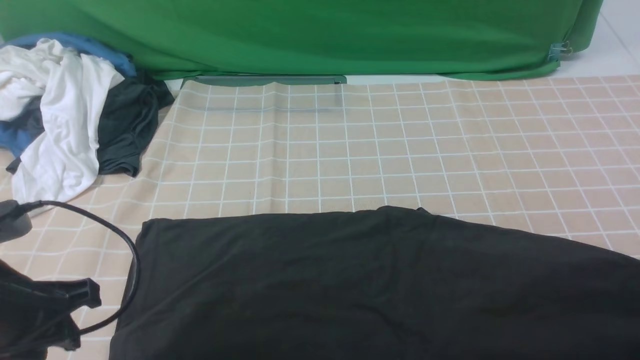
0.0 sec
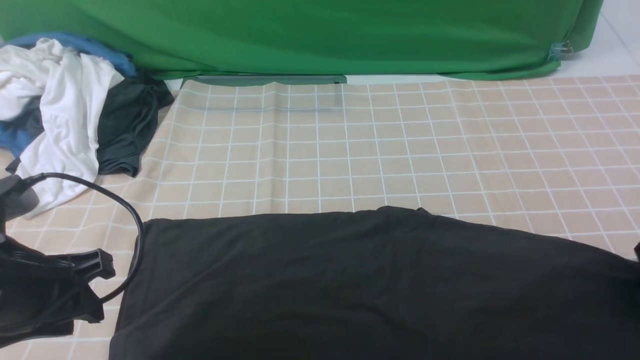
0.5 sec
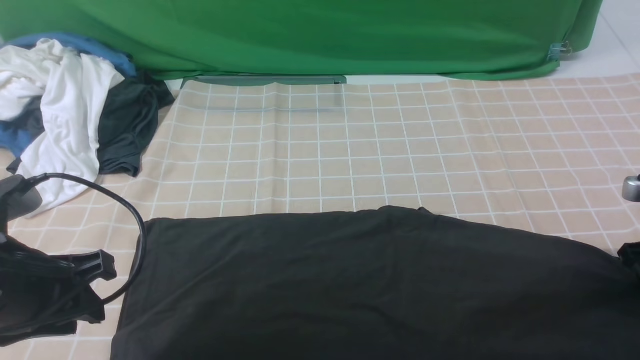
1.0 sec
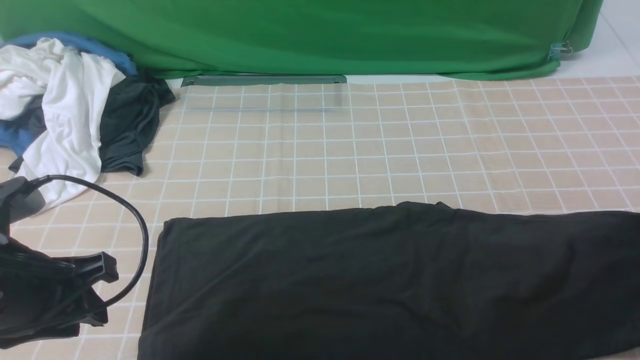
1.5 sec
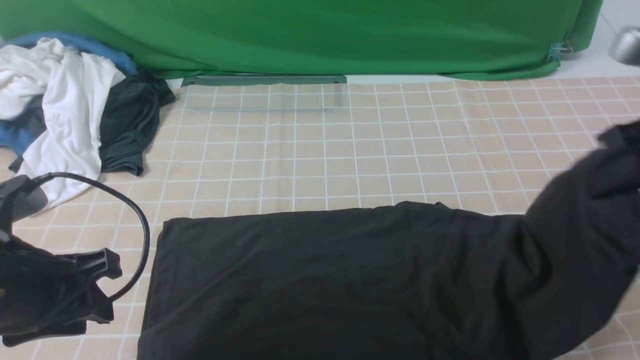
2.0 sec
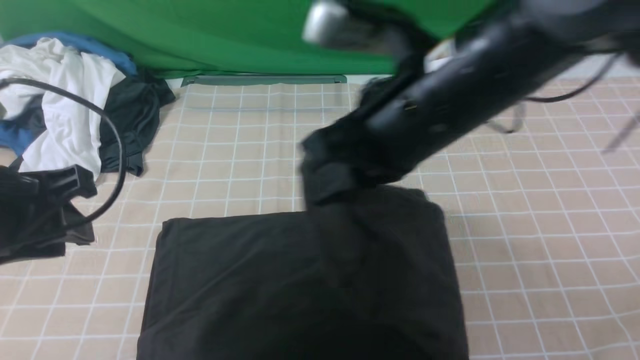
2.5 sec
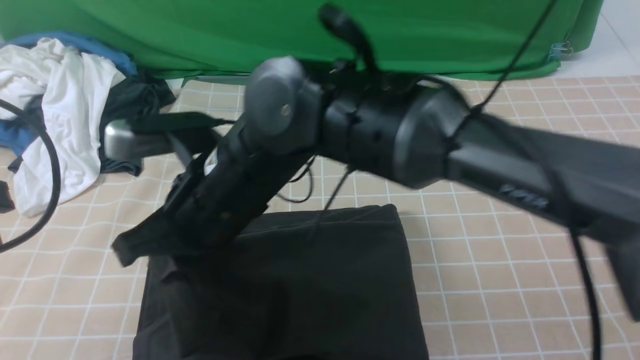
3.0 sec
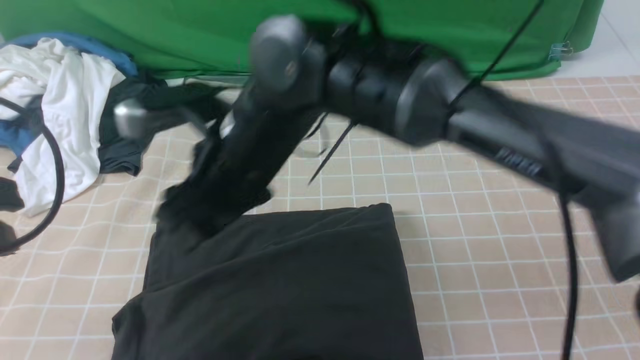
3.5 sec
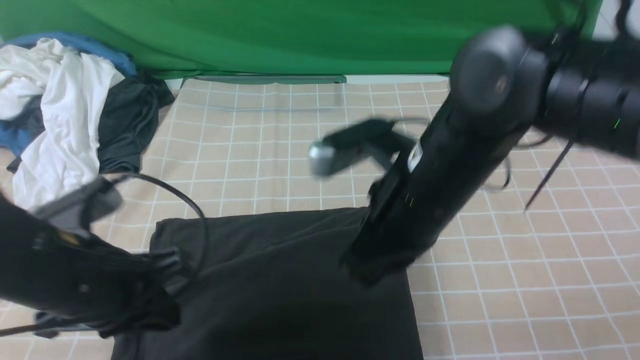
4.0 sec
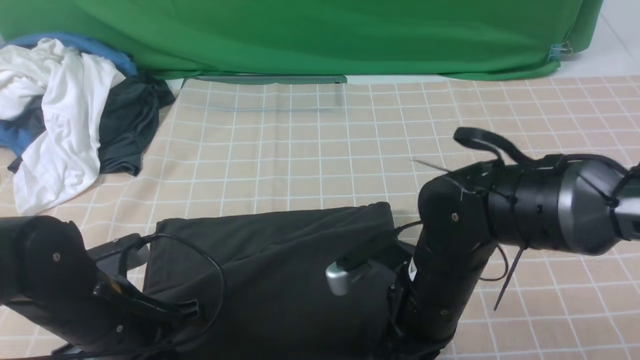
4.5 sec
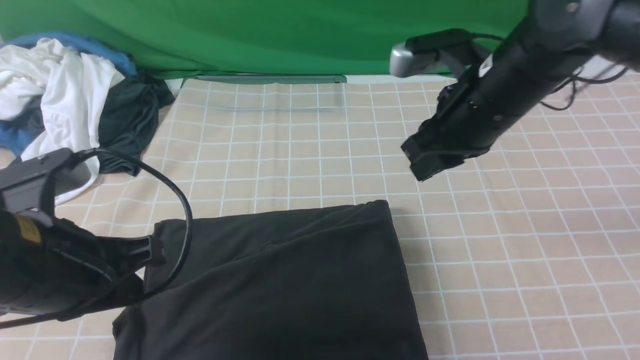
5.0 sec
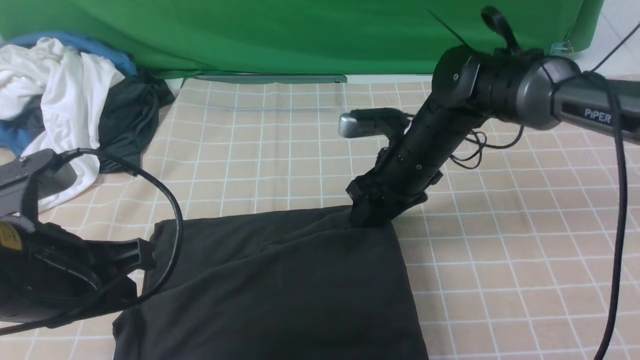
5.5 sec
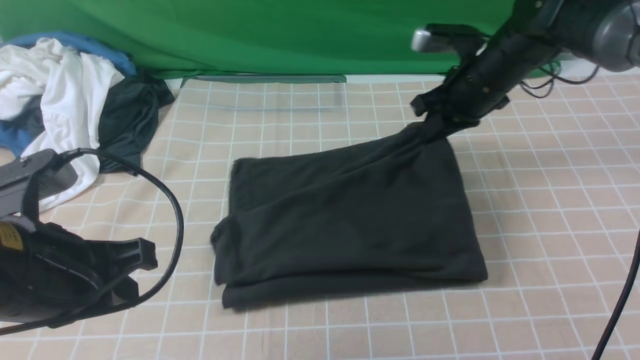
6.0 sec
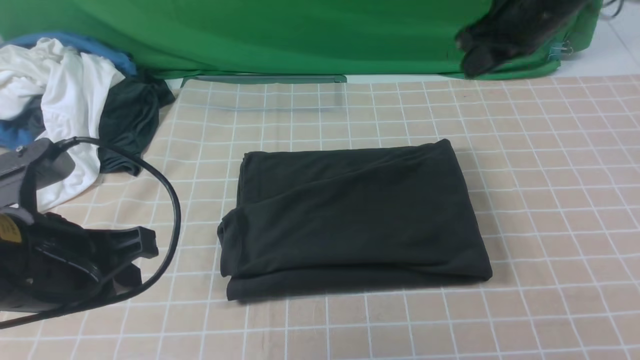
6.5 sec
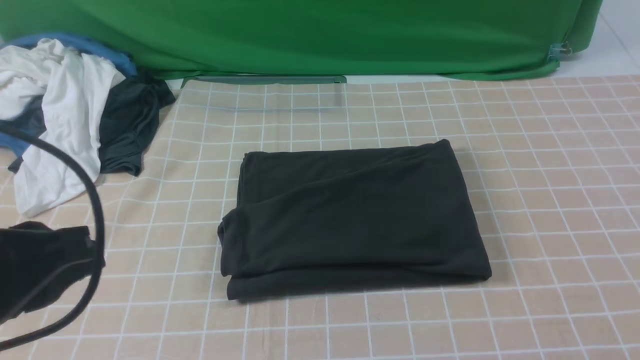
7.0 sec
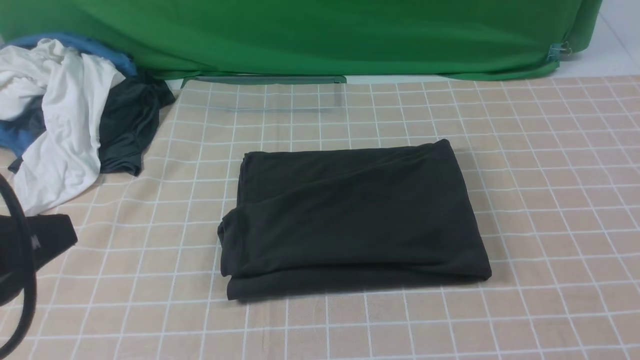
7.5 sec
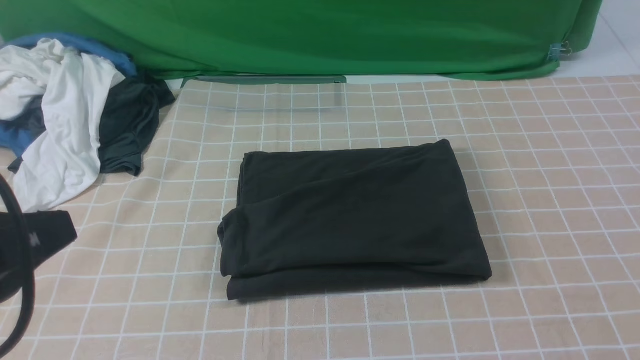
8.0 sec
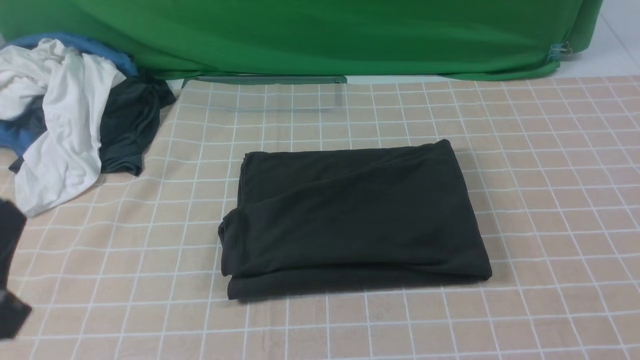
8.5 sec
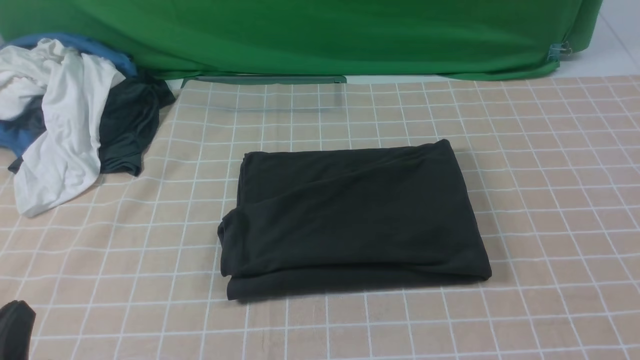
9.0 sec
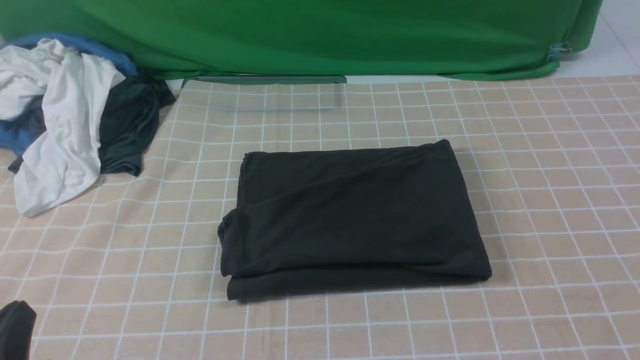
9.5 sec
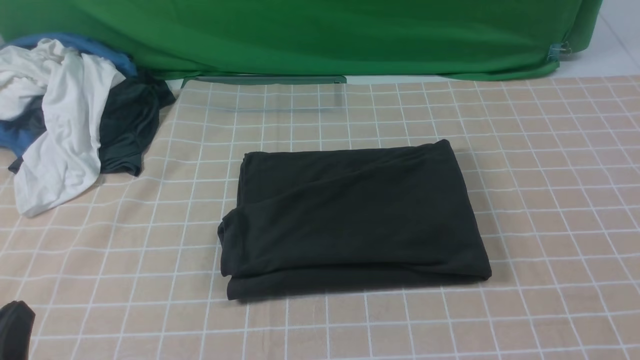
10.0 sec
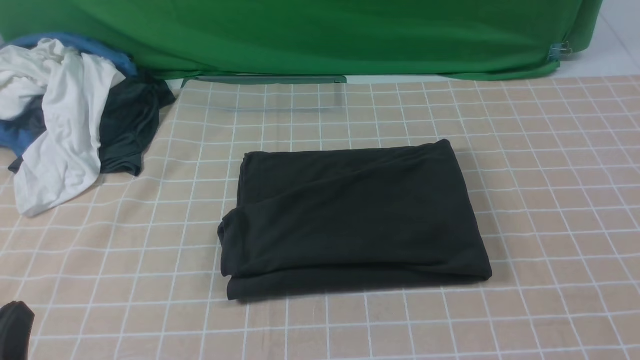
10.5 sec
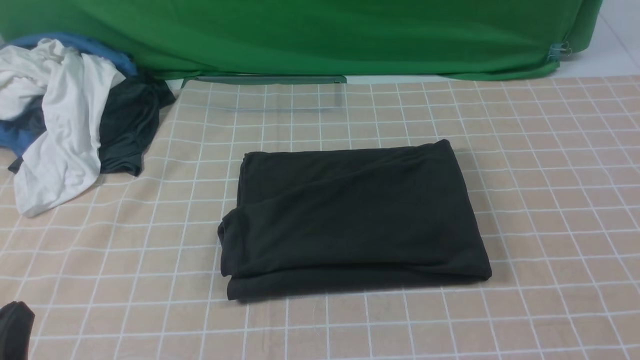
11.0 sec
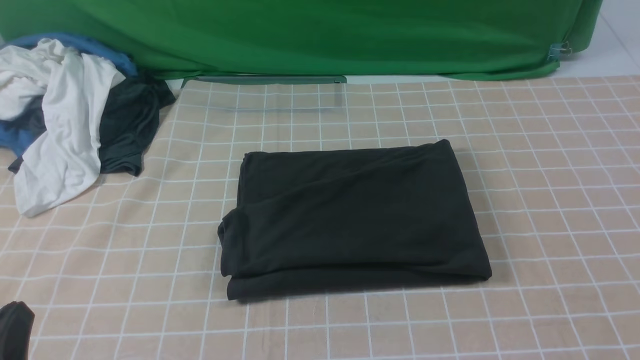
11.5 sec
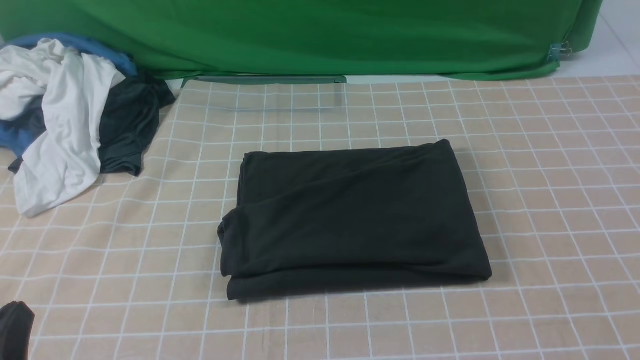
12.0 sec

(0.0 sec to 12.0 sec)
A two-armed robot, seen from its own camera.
Step, 1.5 sec - 3.0 sec: use the right arm to drag the right edge of the fabric to the left and folds it over the left edge.
0.0 sec - 2.0 sec: The right gripper travels to the left and upward by some 15 cm, and closes its fingers.
2.0 sec - 4.0 sec: The left gripper travels upward and back again, approximately 10 cm each way, and closes; the right gripper is displaced to the left by roughly 20 cm, and opens, then closes once more.
4.0 sec - 6.0 sec: The right gripper travels forward and to the right by some 20 cm. The left gripper moves roughly 5 cm.
6.0 sec - 8.0 sec: The left gripper is displaced backward and upward by about 10 cm; the right gripper travels backward by some 40 cm.
8.0 sec - 10.0 sec: The left gripper travels downward by roughly 15 cm.

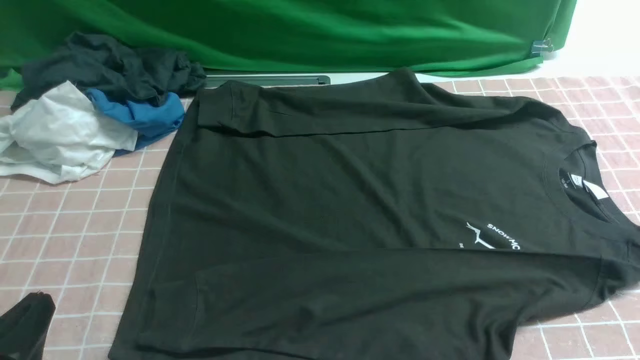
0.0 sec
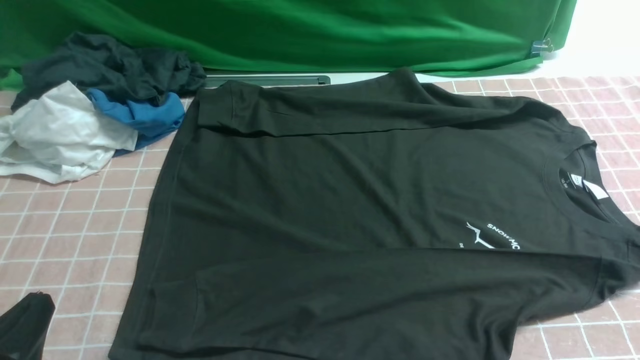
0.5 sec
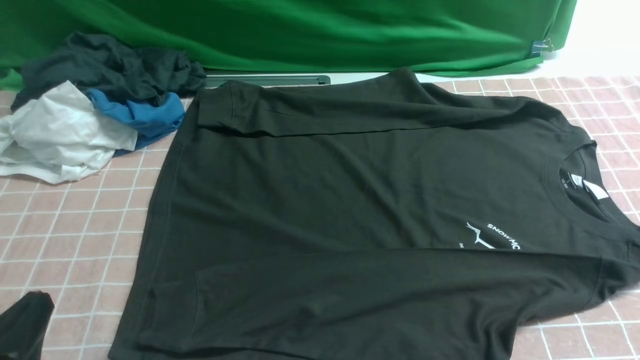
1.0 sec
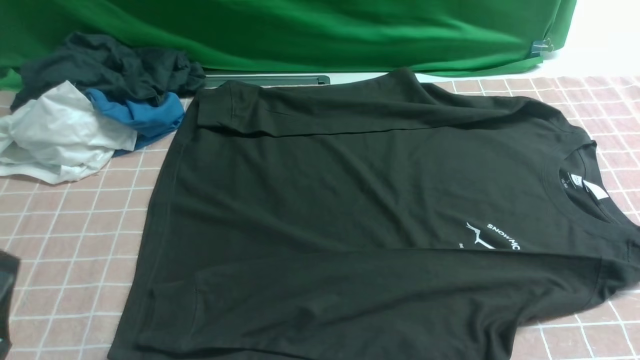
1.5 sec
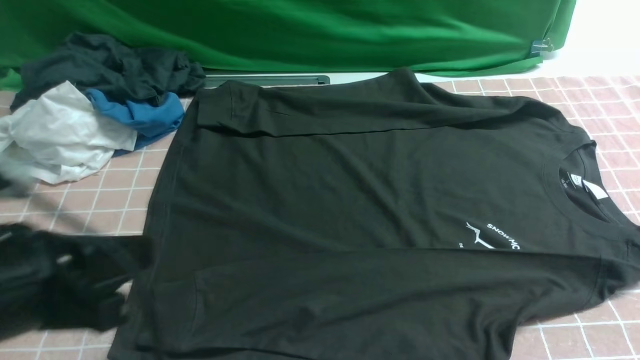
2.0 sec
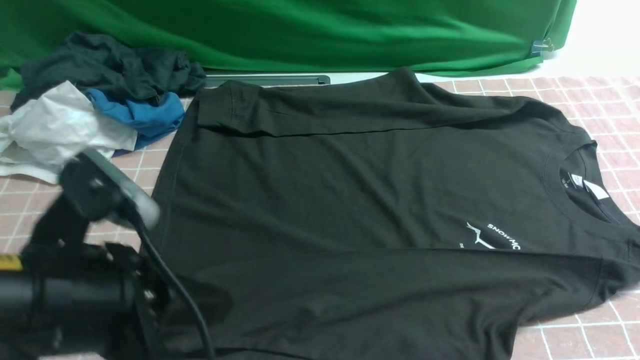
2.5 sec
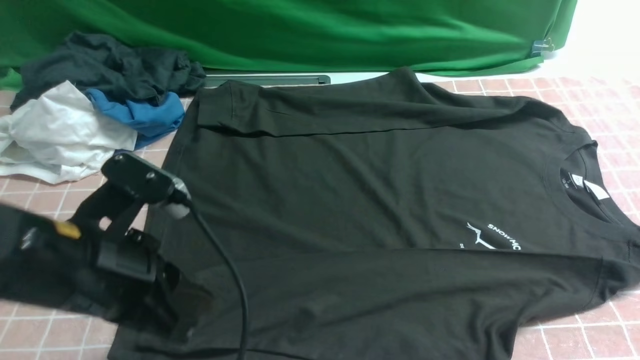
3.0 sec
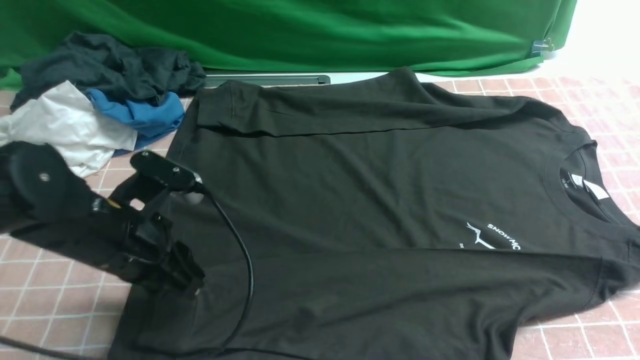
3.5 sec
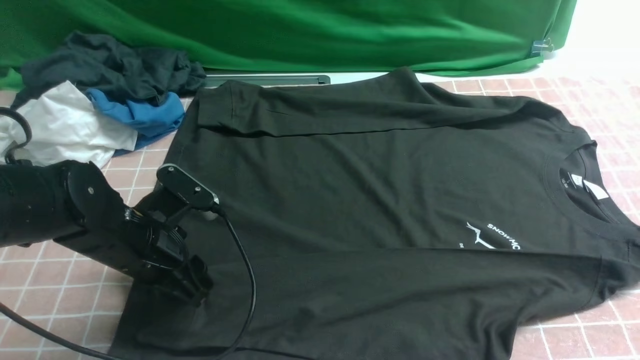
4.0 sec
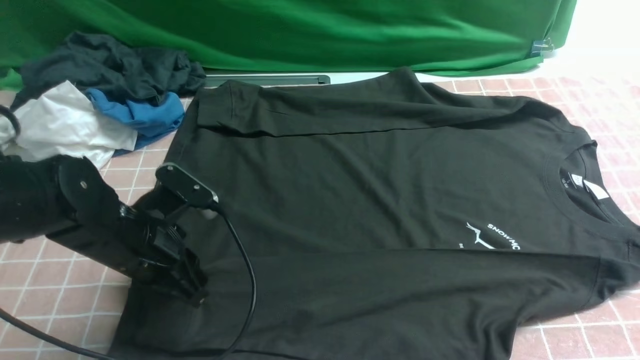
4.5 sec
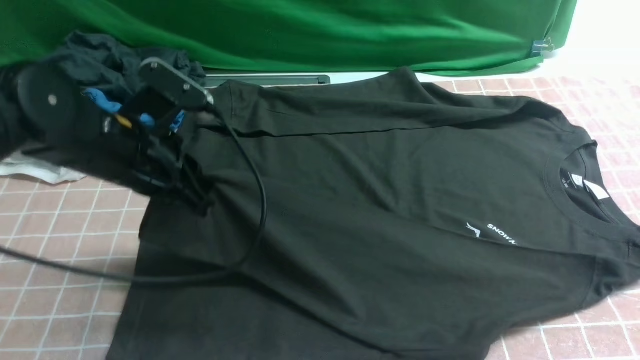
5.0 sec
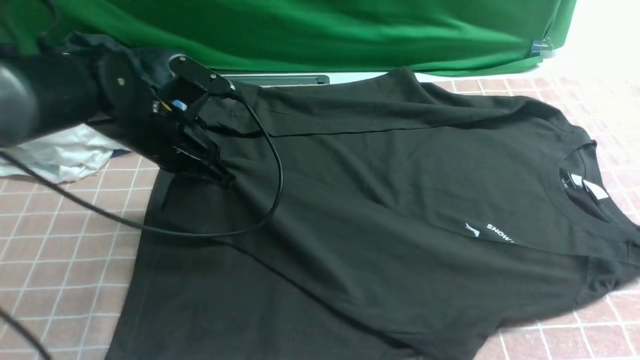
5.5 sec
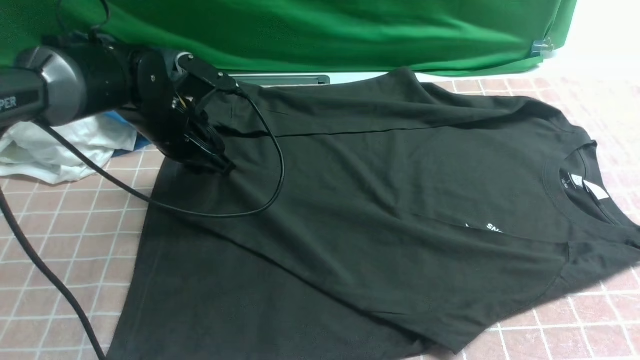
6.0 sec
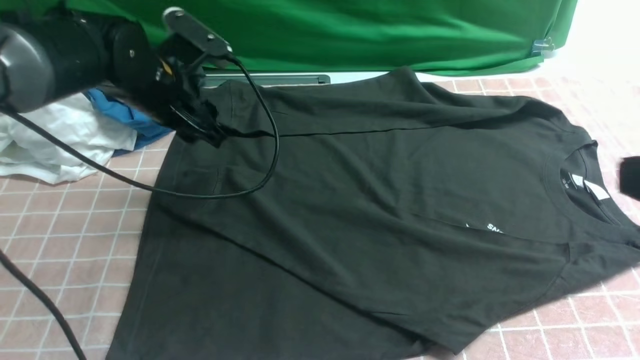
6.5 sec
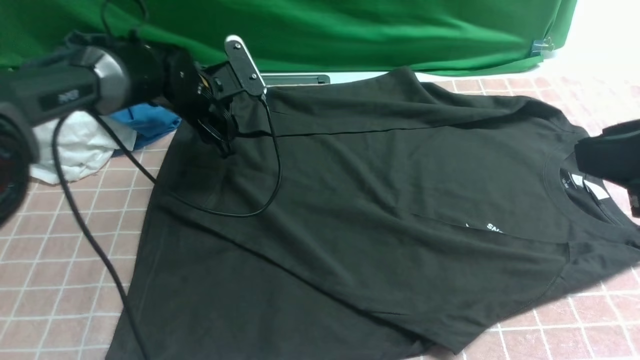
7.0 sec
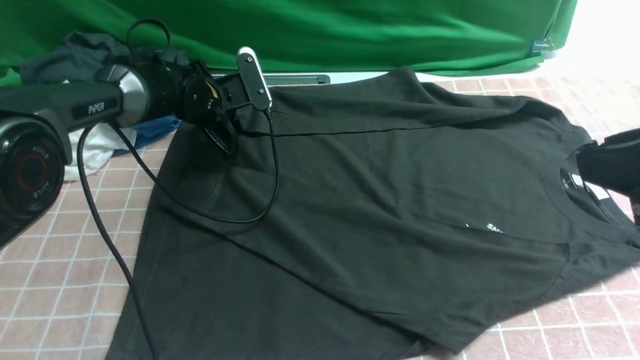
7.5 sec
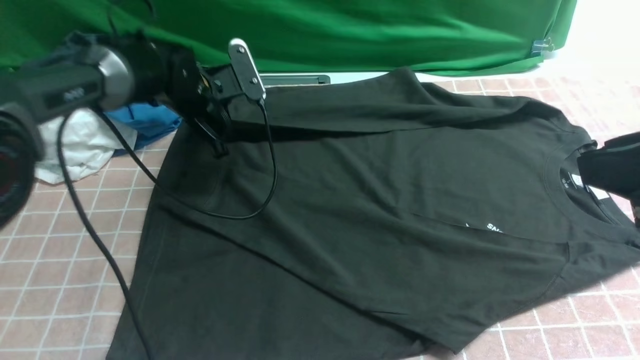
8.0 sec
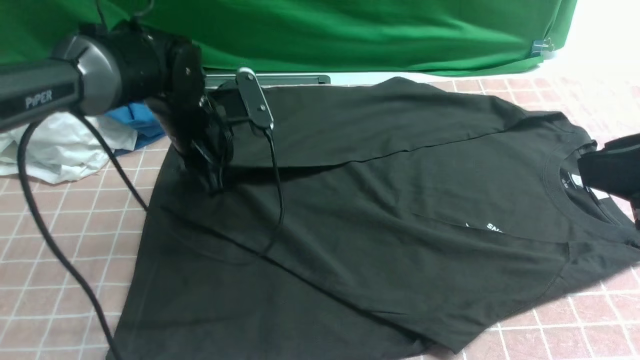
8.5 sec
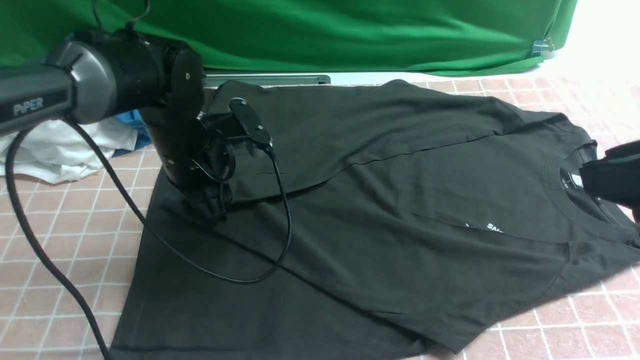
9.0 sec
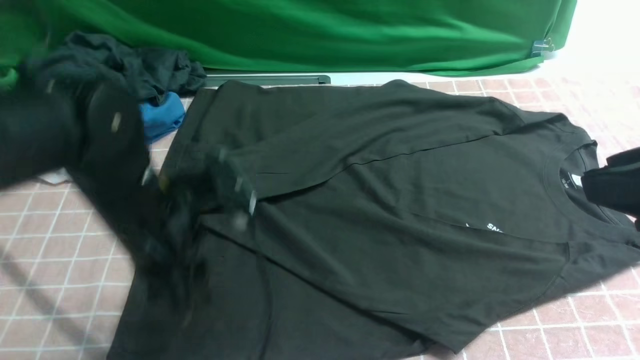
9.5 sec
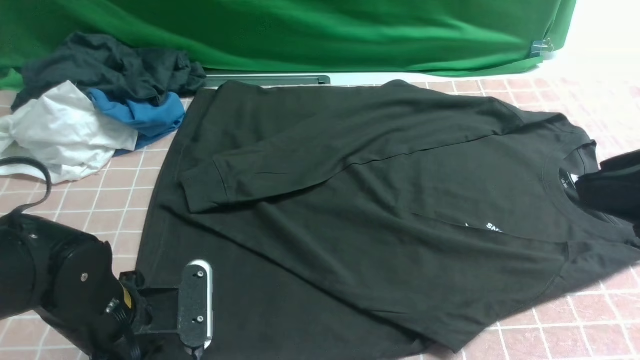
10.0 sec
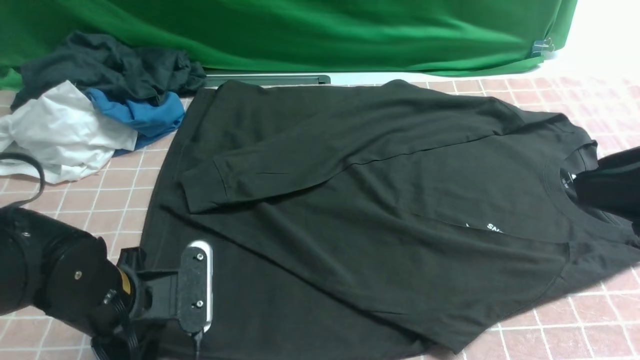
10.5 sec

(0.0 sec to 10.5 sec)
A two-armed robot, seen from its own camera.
Step, 0.0 sec - 4.5 sec: use the left arm to clamp the cuff closest to it.
Step, 5.0 sec - 6.0 sec: use the left arm to drag and place the cuff at the centered position on the left edge of the fabric.
Step, 6.5 sec - 8.0 sec: use the left arm to clamp the cuff farthest from it.
Step, 8.5 sec - 9.0 sec: use the left arm to drag and drop the cuff onto the cuff closest to the left arm.
0.0 sec - 2.0 sec: The left gripper moves upward and forward, roughly 10 cm.
2.0 sec - 4.0 sec: The left gripper goes some 20 cm forward and downward, and opens.
4.0 sec - 6.5 sec: The left gripper shifts approximately 15 cm forward and upward, and closes, then reopens; the right gripper shifts approximately 5 cm forward.
6.5 sec - 8.5 sec: The left gripper travels forward and back again, approximately 10 cm each way, and closes up.
8.5 sec - 10.5 sec: The left gripper shifts roughly 20 cm backward, and opens its fingers.
